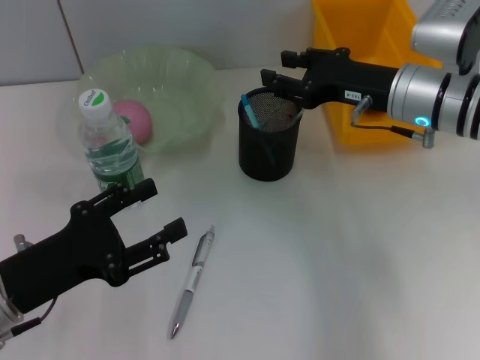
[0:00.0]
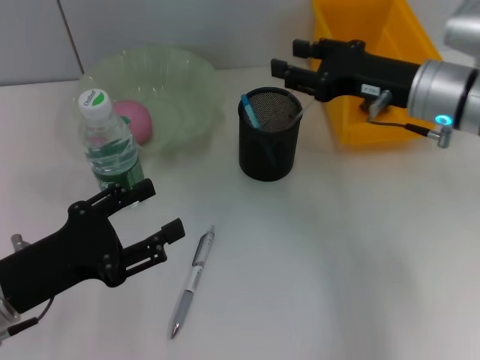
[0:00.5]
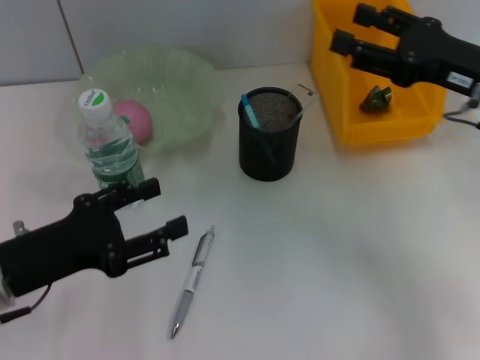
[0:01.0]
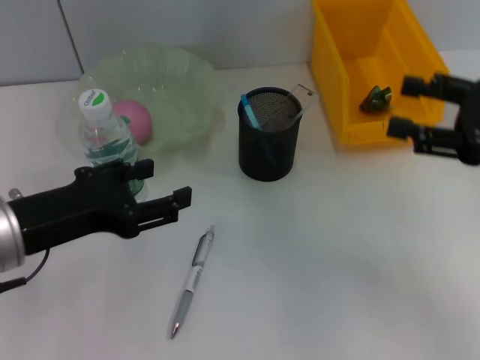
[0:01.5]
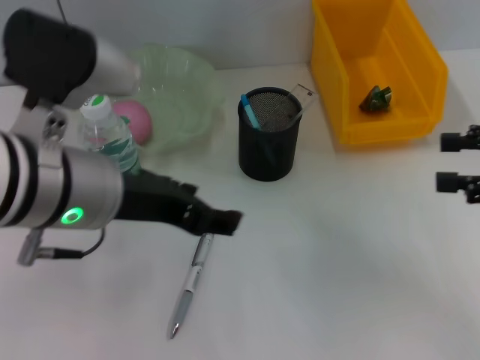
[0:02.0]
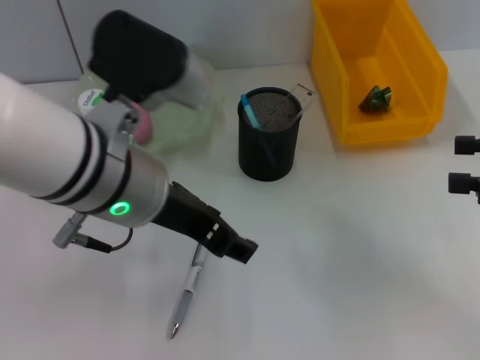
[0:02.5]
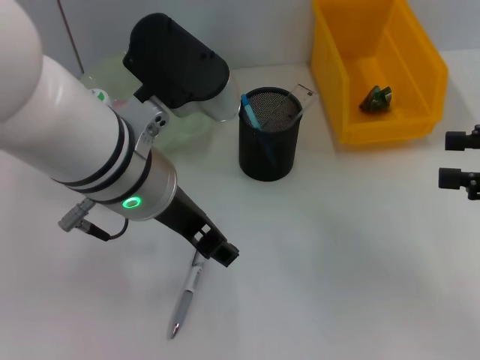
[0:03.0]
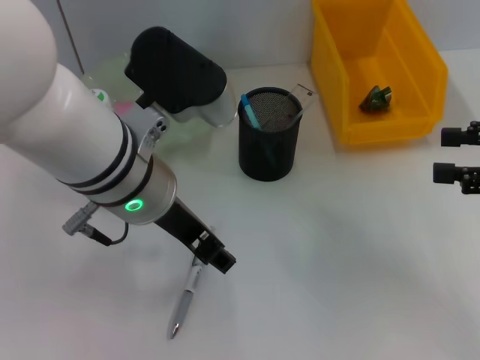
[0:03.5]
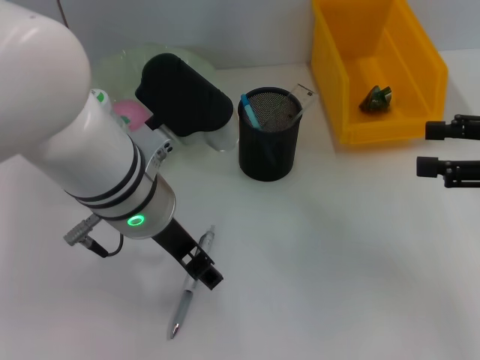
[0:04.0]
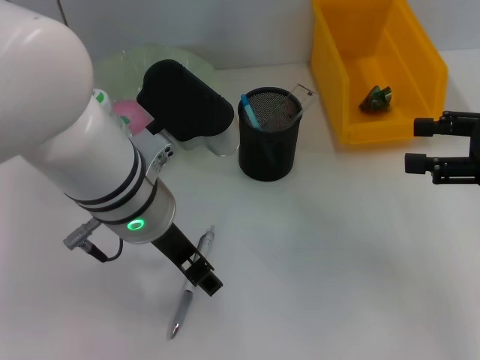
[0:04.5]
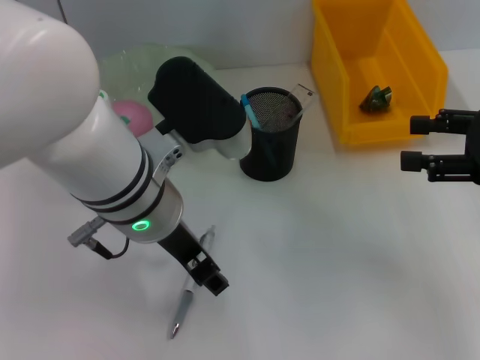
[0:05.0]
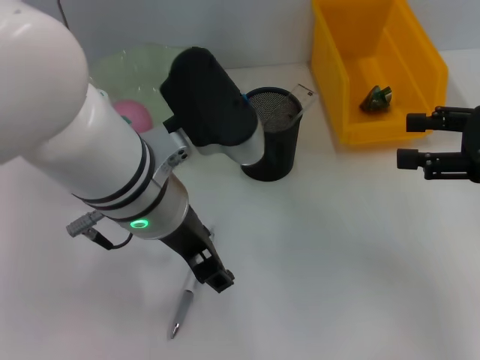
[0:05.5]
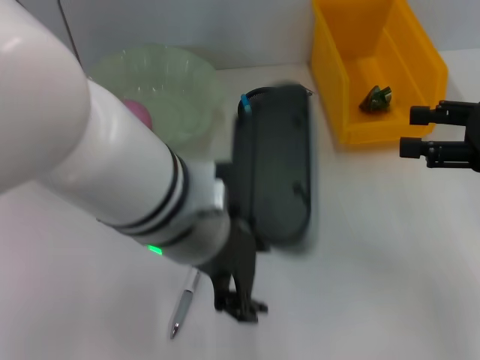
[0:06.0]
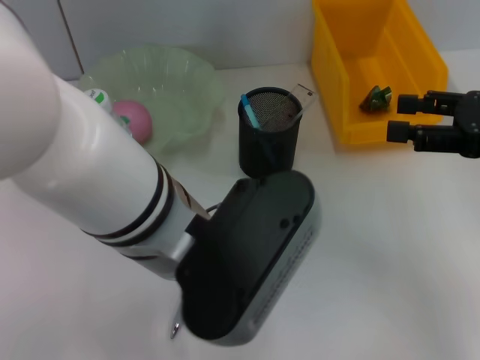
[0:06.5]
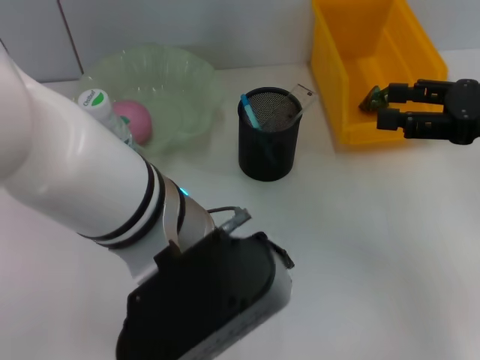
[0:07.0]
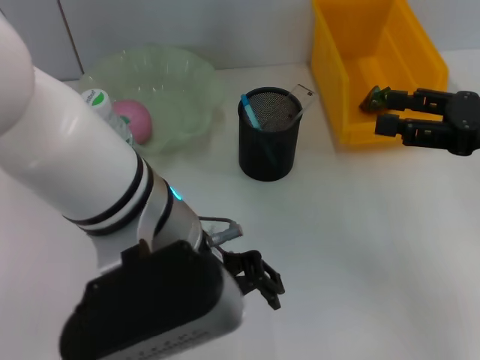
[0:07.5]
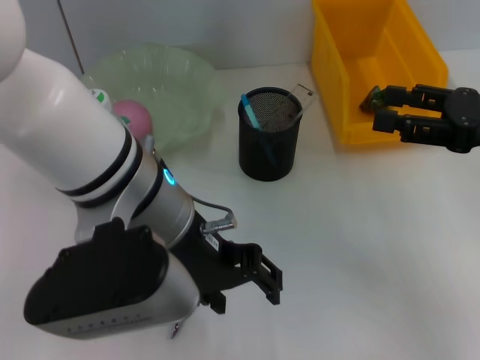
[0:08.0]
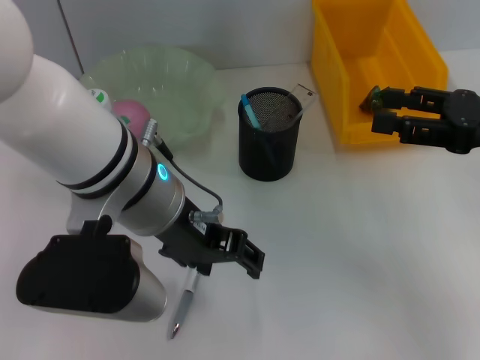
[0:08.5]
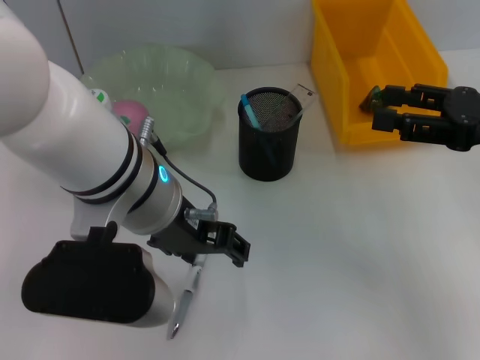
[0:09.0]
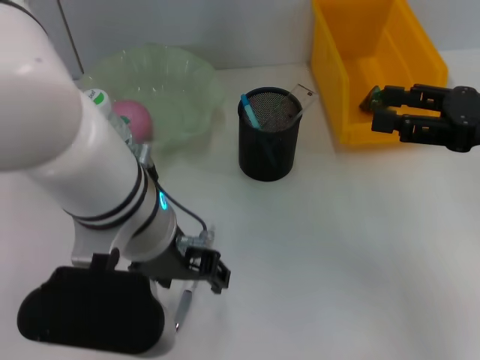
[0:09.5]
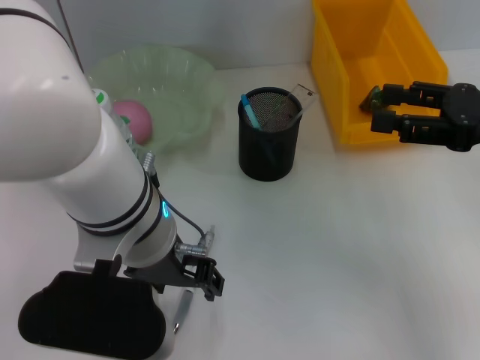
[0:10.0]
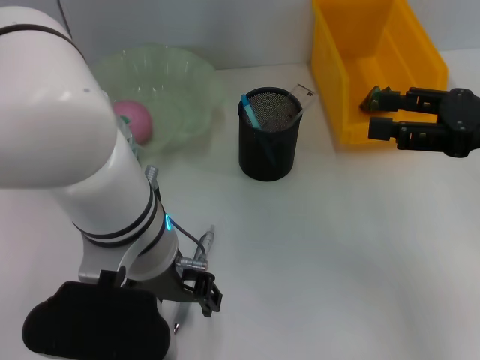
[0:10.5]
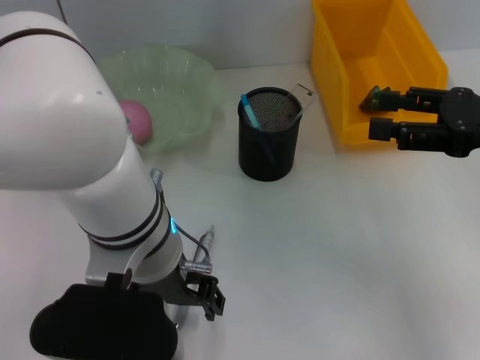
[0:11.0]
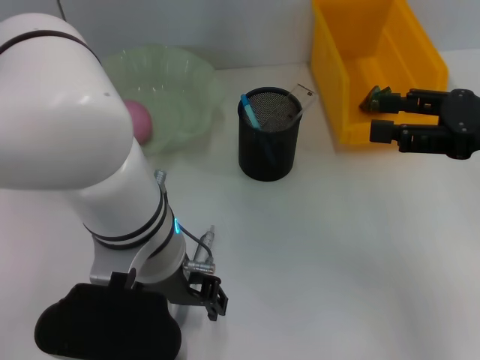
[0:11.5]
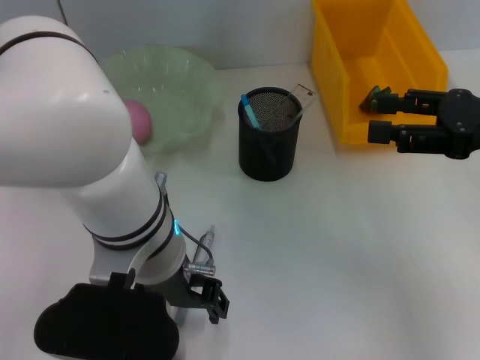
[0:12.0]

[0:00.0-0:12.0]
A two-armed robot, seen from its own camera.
0:00.0 to 0:02.0: The left gripper heads upward and to the right, covering approximately 15 cm. The right gripper is displaced to the right and backward by roughly 20 cm, and opens up.
0:02.0 to 0:04.0: The left gripper goes some 5 cm to the right.
0:04.0 to 0:06.0: The left gripper shifts by roughly 5 cm.
0:10.0 to 0:12.0: The grippers stay close to where they were, moving slightly.

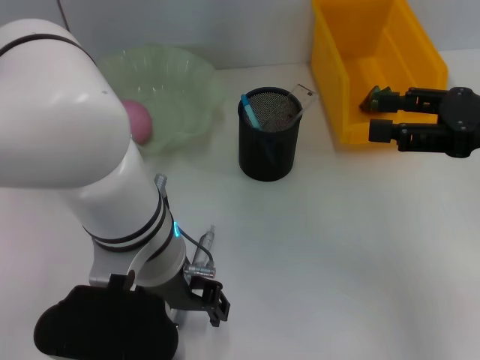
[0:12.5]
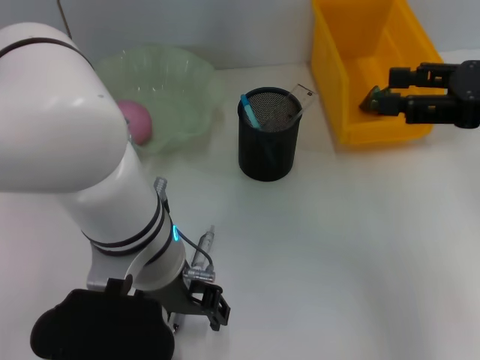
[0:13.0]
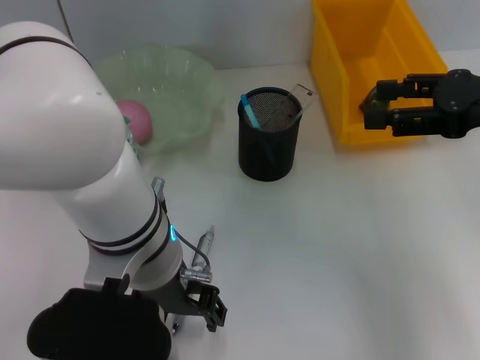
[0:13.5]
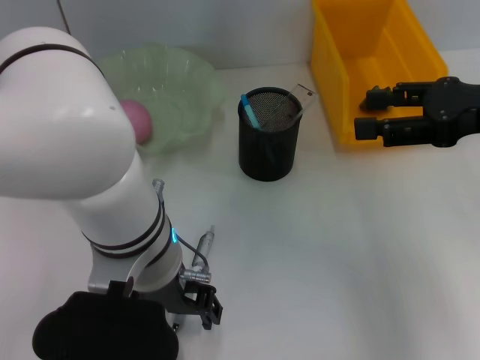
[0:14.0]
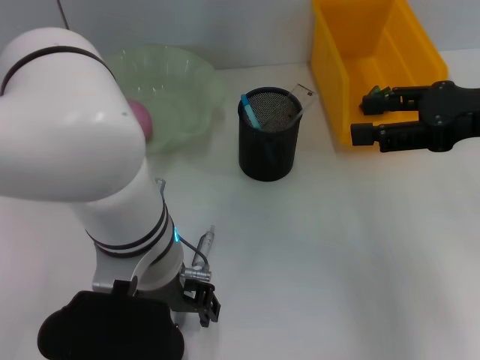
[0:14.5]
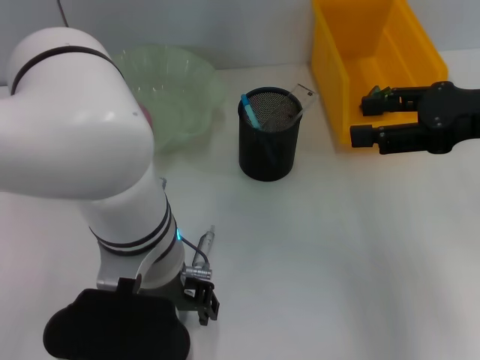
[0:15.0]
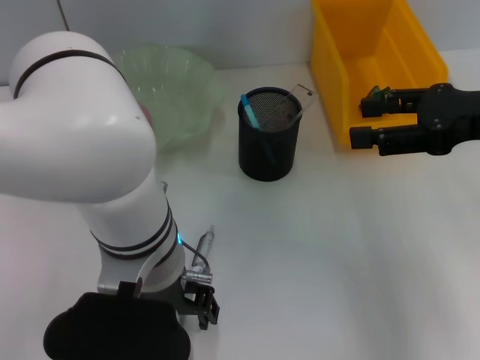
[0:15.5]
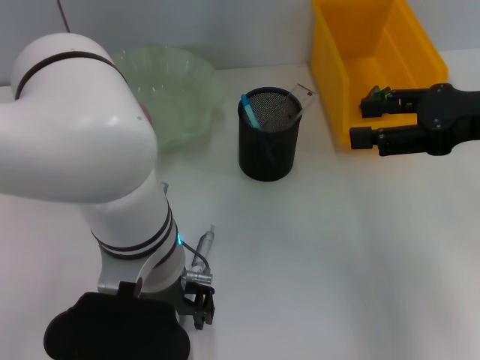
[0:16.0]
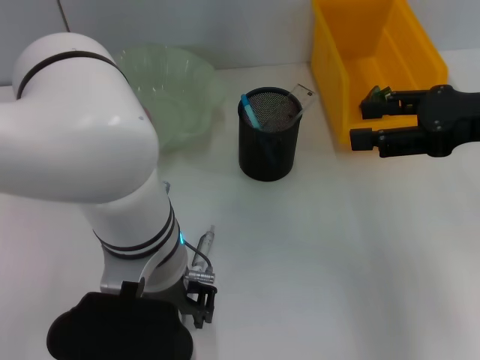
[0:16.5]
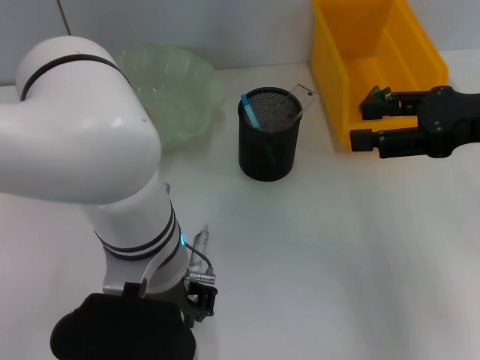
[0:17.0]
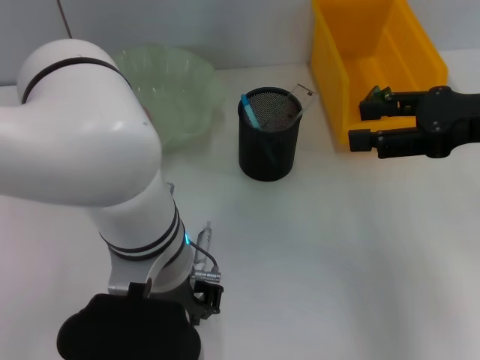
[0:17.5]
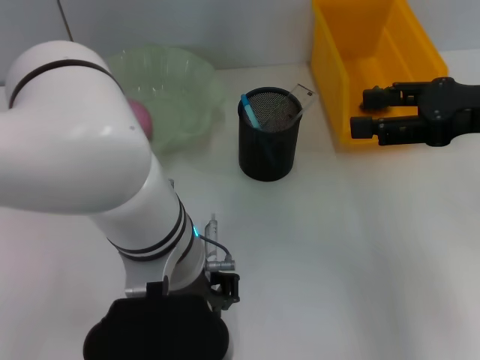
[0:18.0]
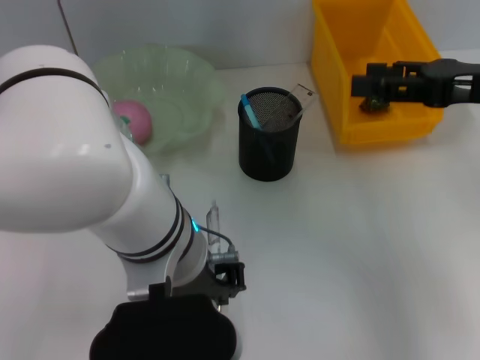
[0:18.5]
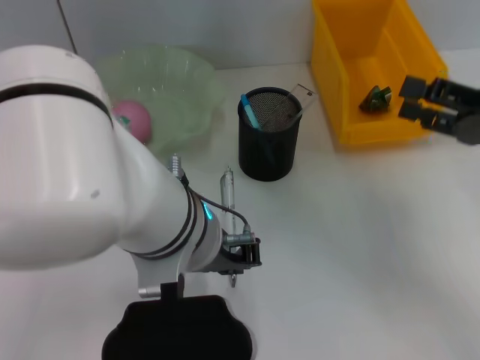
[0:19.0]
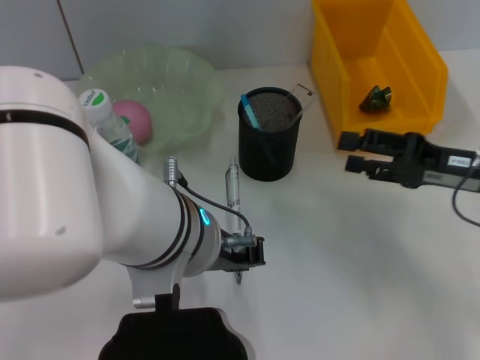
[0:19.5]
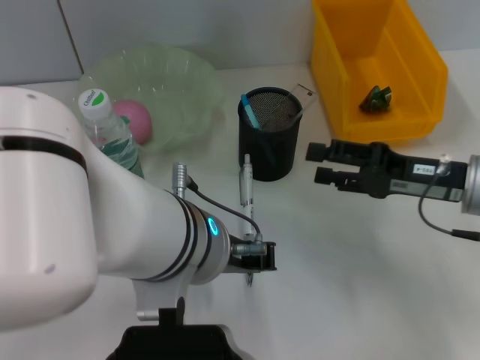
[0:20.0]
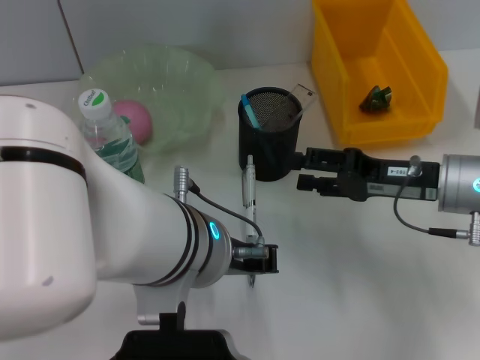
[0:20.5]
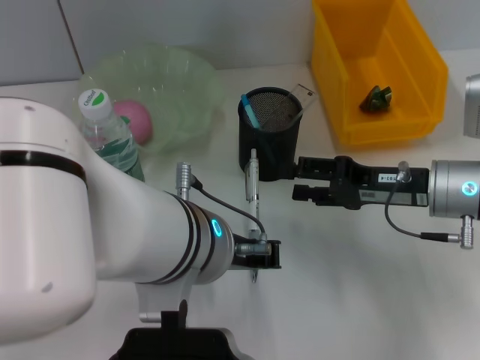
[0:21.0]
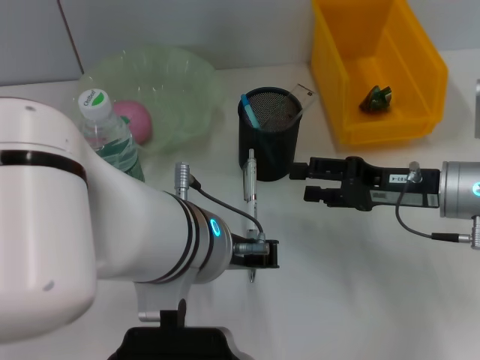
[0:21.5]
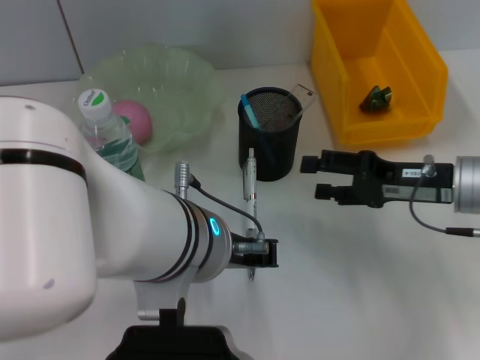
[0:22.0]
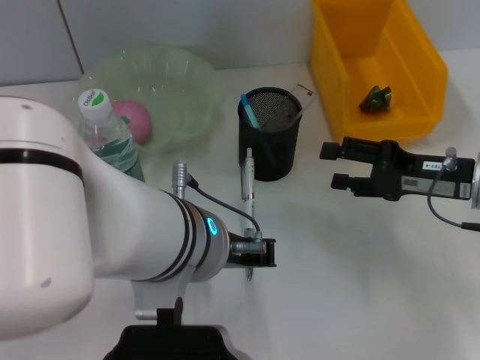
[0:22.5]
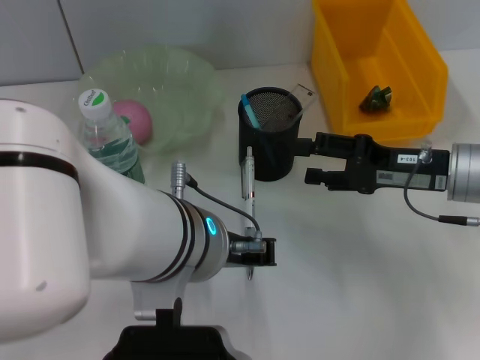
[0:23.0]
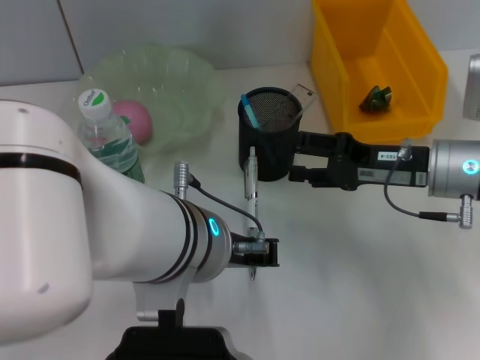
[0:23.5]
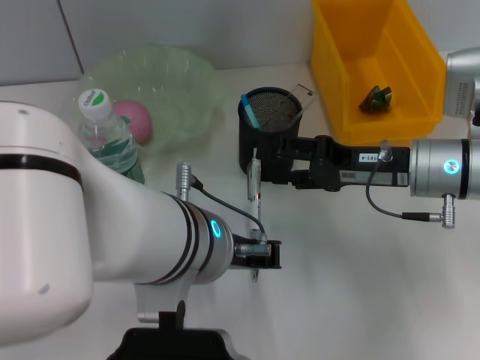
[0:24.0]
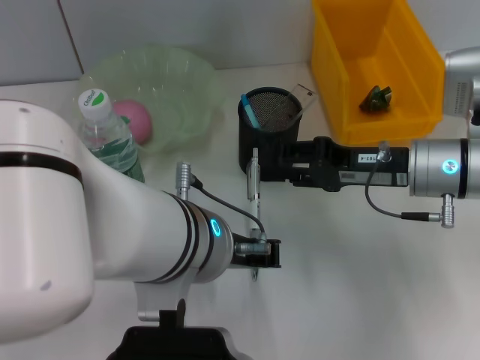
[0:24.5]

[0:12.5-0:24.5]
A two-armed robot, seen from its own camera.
Step, 0:12.5 to 0:17.0: Grab the gray spring-action pen with the left hand.
0:12.5 to 0:14.5: The grippers move only a little.
0:14.5 to 0:16.5: Both grippers stay about where they are.
0:16.5 to 0:18.5: The left gripper closes.
0:18.5 to 0:20.5: The right gripper travels downward and to the left by approximately 15 cm.
0:20.5 to 0:22.5: There are only small adjustments of the grippers.
0:22.5 to 0:24.5: The right gripper moves to the left, about 5 cm.

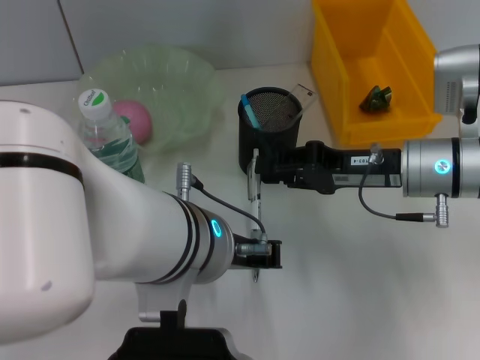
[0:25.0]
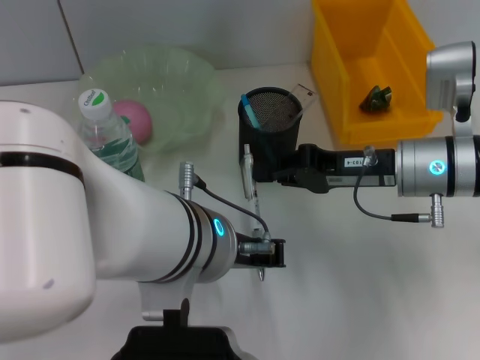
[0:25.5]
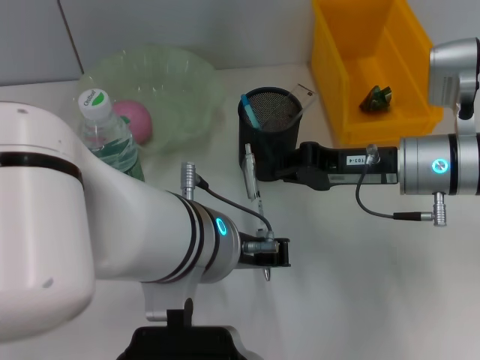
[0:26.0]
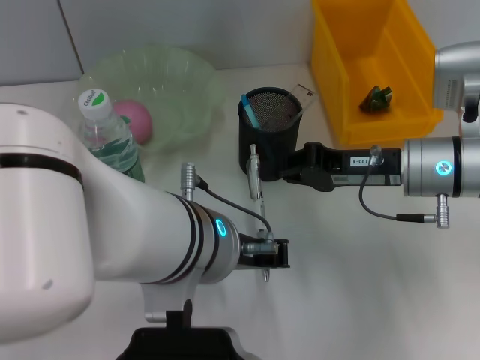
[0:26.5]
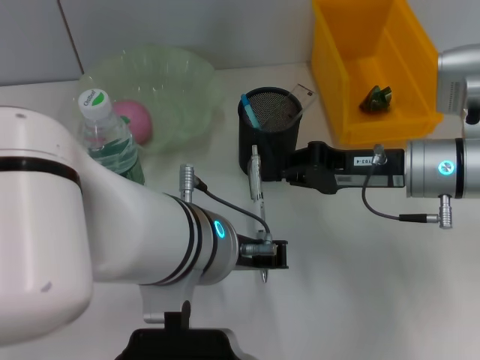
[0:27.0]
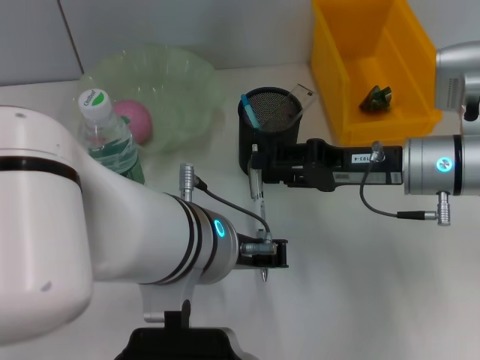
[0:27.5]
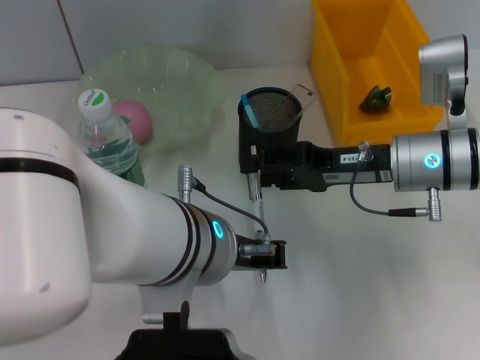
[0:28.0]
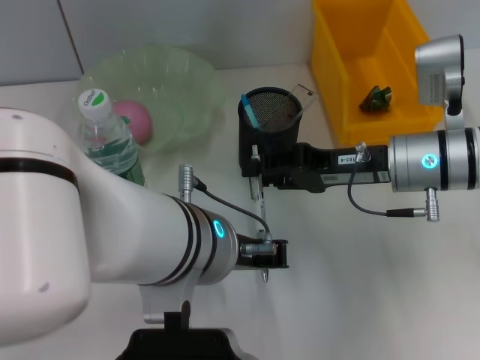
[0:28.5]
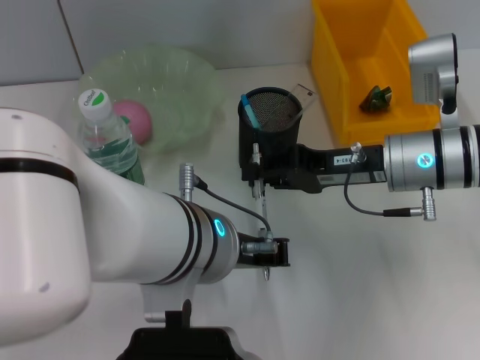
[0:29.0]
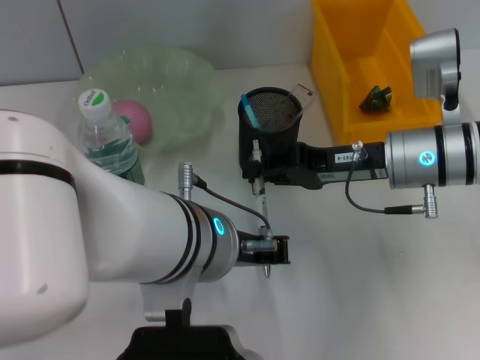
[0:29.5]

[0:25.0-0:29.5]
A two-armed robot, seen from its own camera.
0:25.0 to 0:27.0: The right gripper closes its fingers.
0:27.0 to 0:29.5: The right gripper opens, then closes once more.
